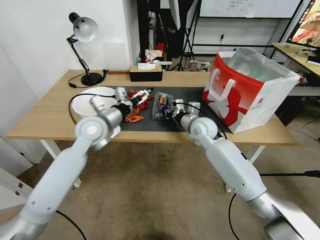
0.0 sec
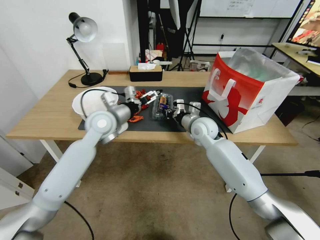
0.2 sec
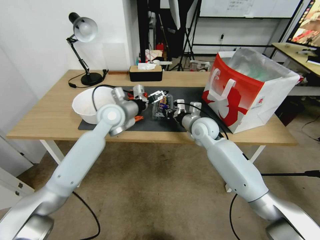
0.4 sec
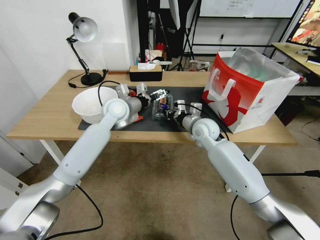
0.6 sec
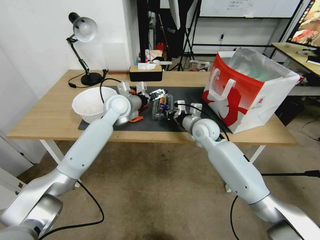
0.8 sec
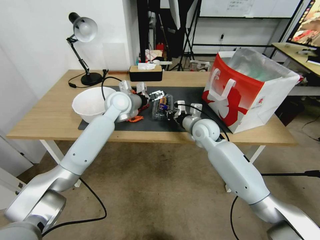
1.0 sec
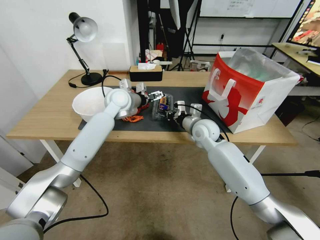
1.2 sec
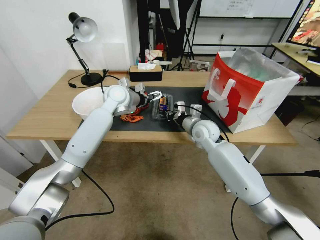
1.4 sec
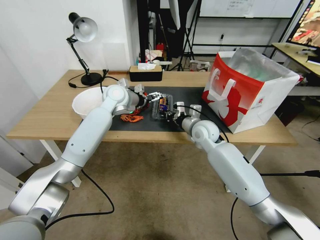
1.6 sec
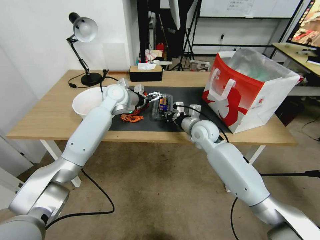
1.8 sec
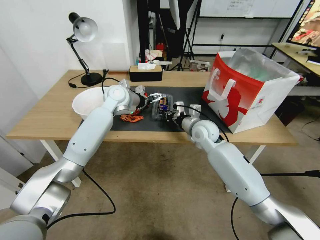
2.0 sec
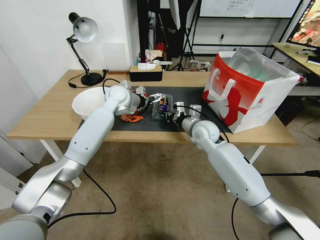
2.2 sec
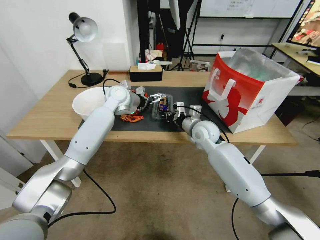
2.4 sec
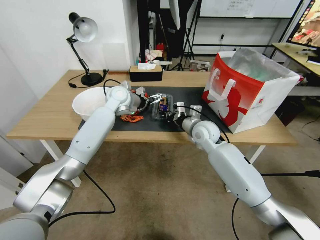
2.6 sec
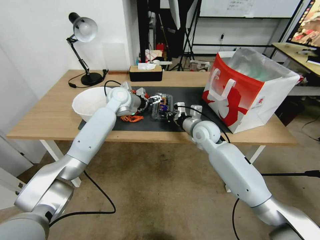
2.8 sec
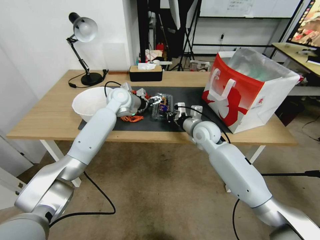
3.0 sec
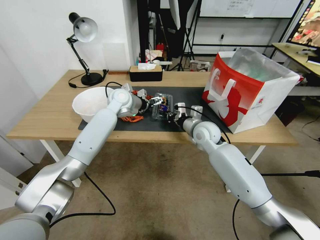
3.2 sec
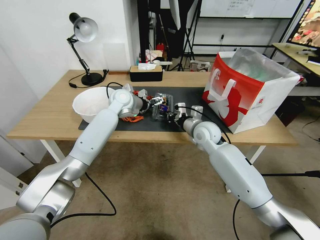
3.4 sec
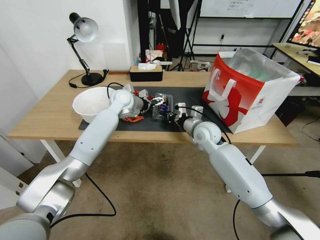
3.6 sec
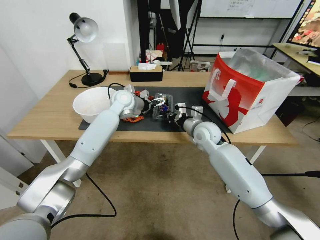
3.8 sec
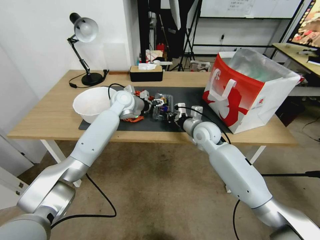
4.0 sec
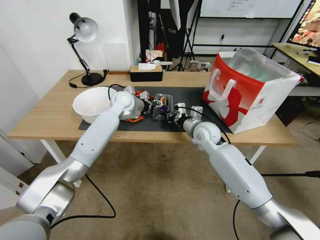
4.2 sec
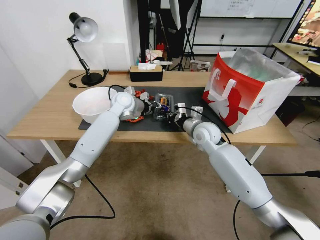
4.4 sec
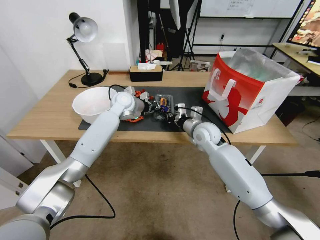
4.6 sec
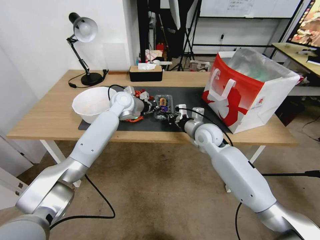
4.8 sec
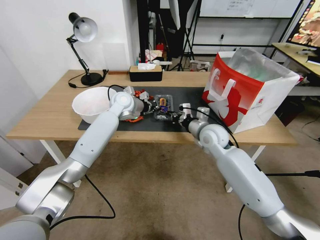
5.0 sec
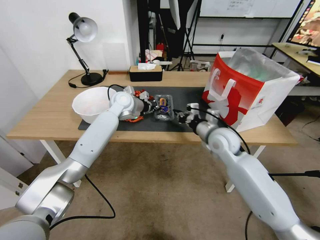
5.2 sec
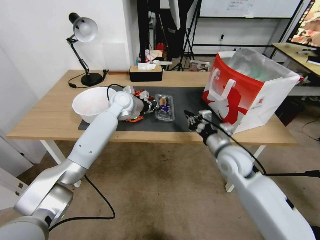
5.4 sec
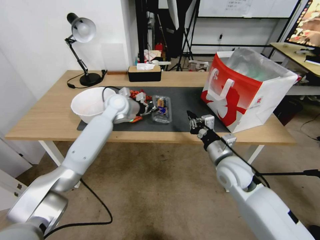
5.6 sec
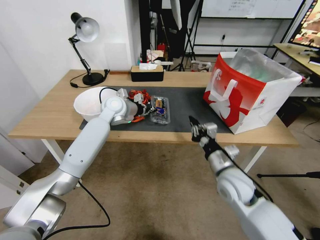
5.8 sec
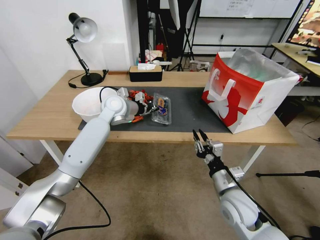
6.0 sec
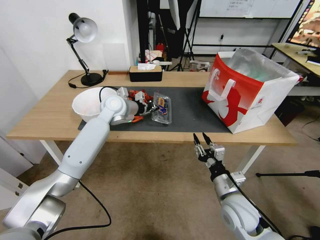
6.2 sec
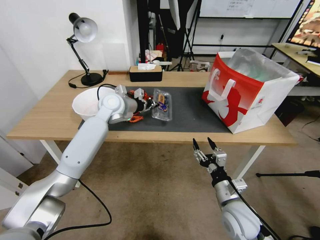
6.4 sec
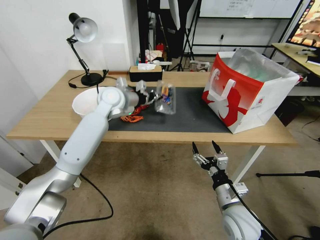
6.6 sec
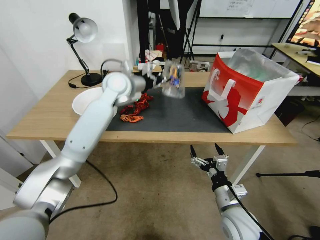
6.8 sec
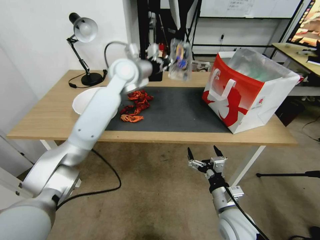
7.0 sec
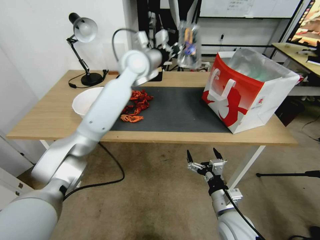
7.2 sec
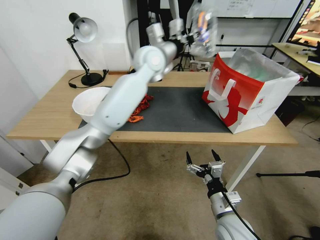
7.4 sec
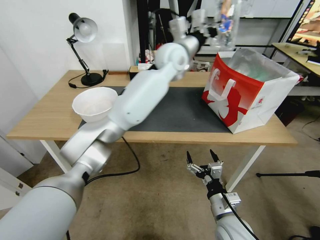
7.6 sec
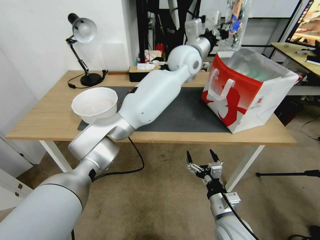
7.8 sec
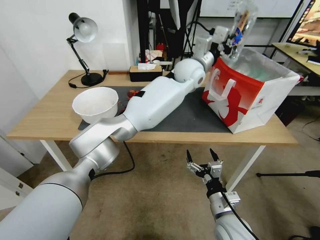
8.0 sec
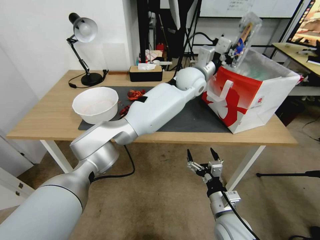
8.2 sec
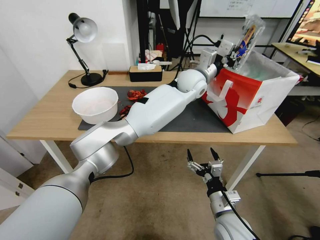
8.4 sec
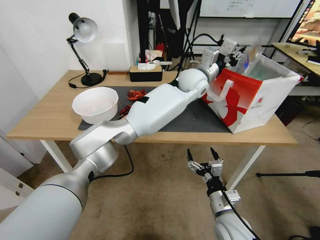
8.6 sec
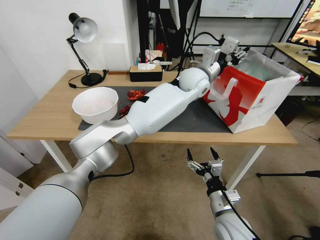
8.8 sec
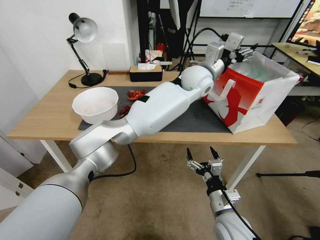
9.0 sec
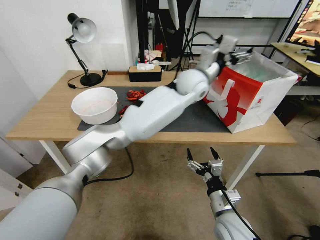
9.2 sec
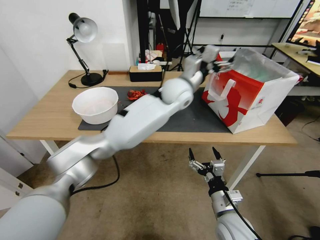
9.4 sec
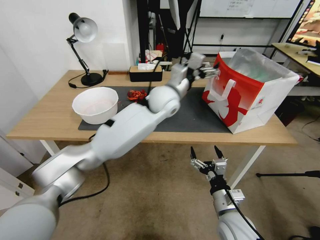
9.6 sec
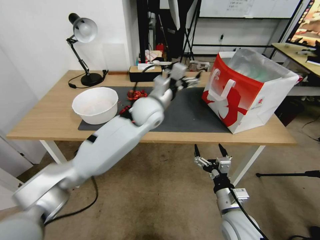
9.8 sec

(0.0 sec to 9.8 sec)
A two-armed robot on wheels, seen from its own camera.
Task of the whole recording: Close the takeout container lid, then place the container into the takeout bag.
0.0 sec - 1.4 sec: The left gripper shifts about 15 cm forward.
1.4 sec - 2.8 sec: The grippers move only a little.
2.8 sec - 4.2 sec: The left gripper closes its fingers.
4.2 sec - 5.6 sec: The left gripper closes. The right gripper heads backward, covering roughly 15 cm.
5.6 sec - 7.0 sec: The right gripper is displaced backward and downward by approximately 15 cm, and opens its fingers, while the left gripper moves upward, roughly 15 cm.
7.0 sec - 8.4 sec: The left gripper shifts roughly 20 cm to the right.
8.4 sec - 9.8 sec: The left gripper travels to the left and backward by roughly 20 cm, and opens.

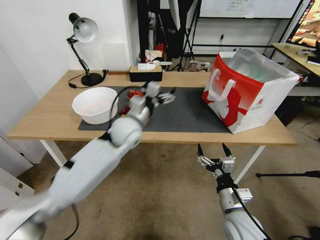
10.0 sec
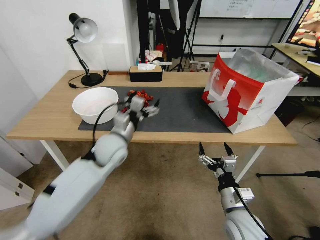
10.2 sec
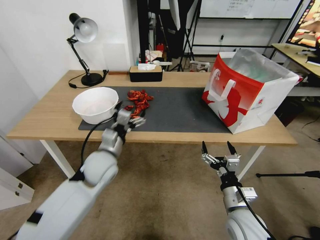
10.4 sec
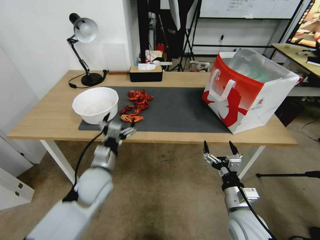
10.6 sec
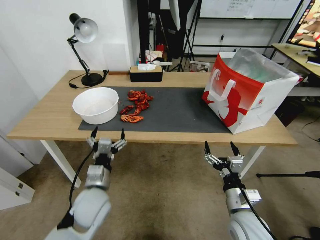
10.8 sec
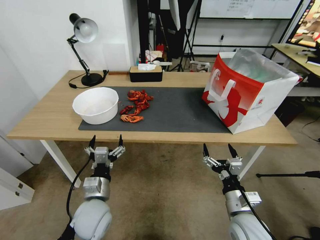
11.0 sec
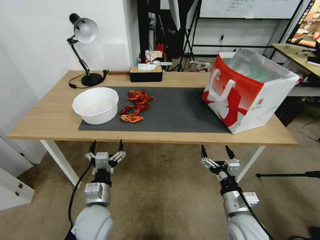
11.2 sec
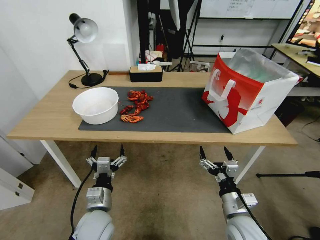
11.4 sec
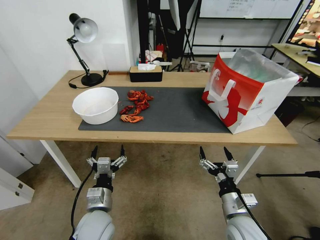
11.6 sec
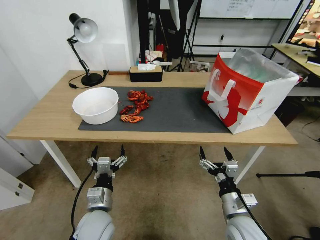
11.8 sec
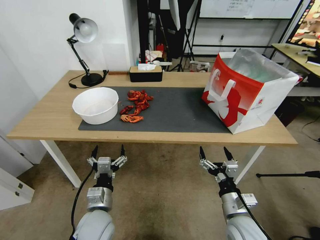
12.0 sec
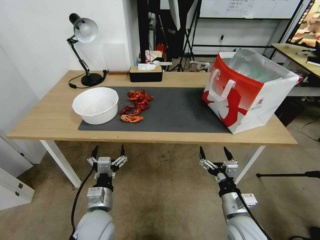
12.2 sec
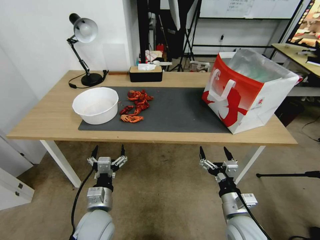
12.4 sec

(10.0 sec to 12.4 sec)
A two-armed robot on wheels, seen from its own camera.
Task of the whole recording: Close the takeout container lid, then place the container into the takeout bag.
10.0 sec - 11.2 sec: The left gripper moves backward and downward, some 25 cm.
11.2 sec - 12.4 sec: There are only small adjustments of the grippers.
